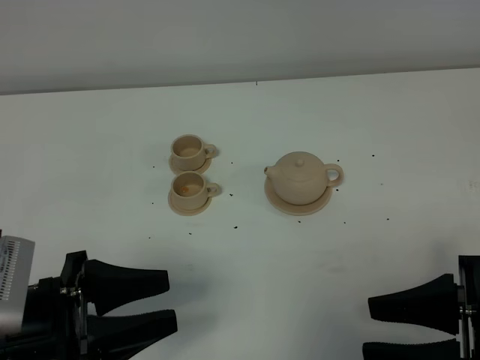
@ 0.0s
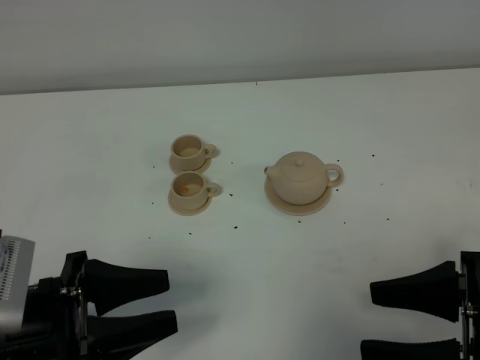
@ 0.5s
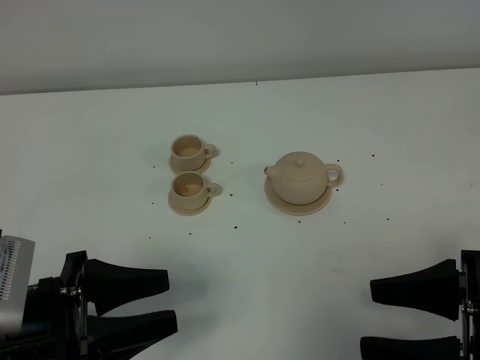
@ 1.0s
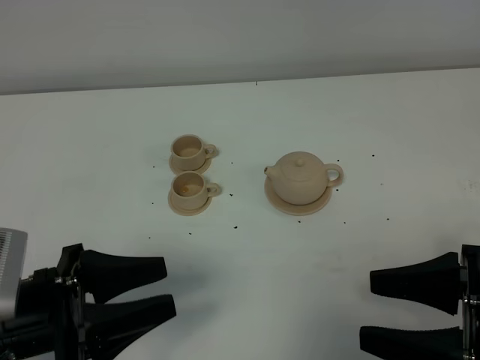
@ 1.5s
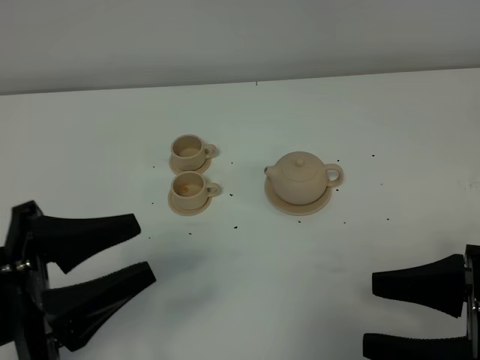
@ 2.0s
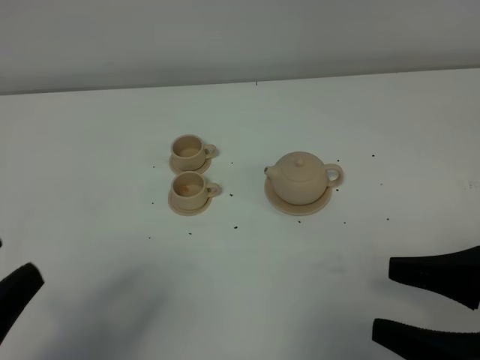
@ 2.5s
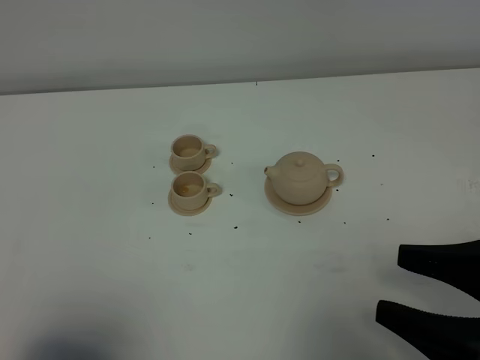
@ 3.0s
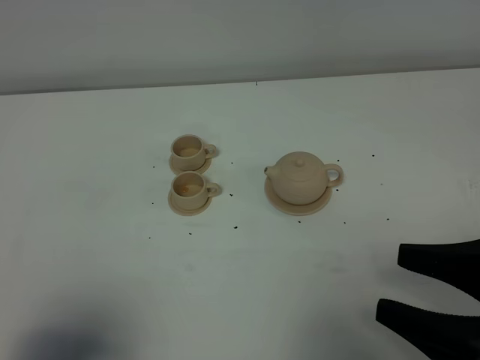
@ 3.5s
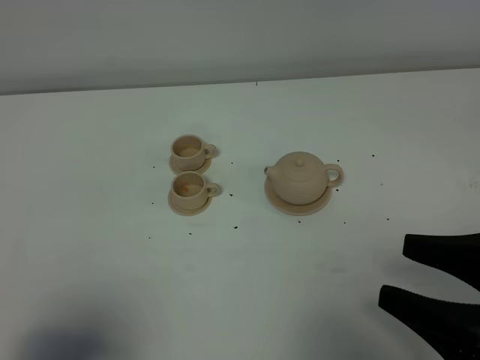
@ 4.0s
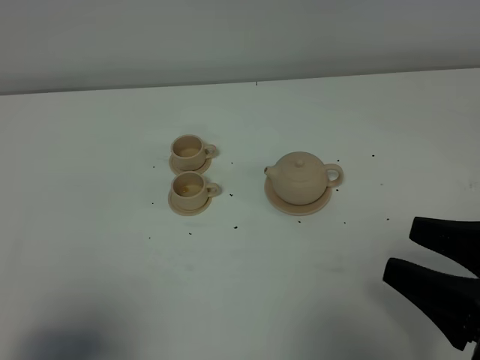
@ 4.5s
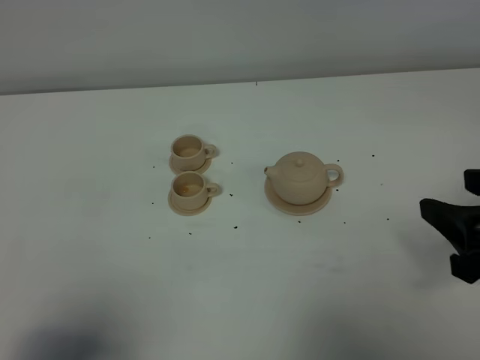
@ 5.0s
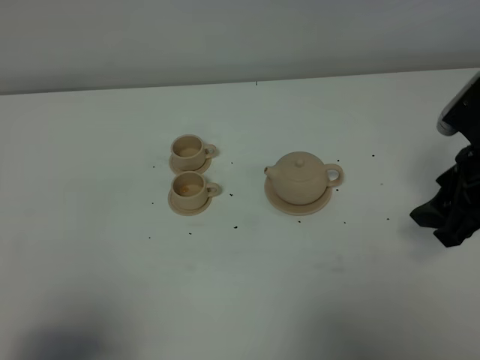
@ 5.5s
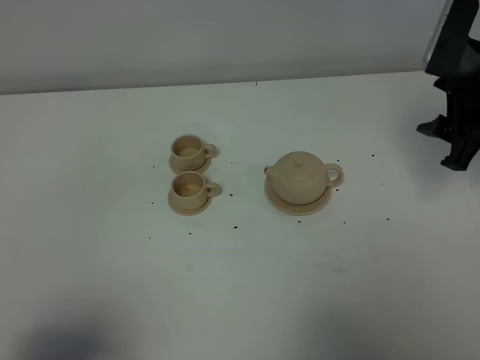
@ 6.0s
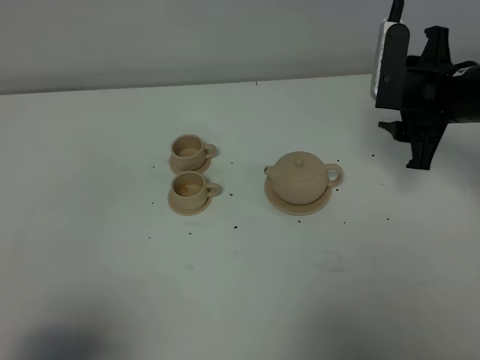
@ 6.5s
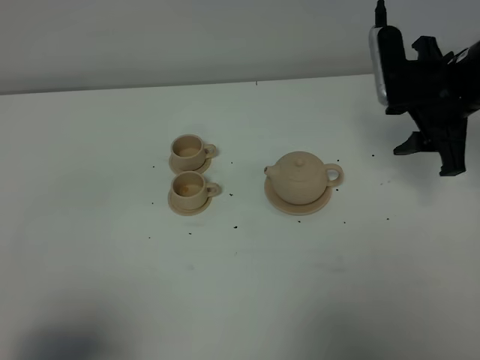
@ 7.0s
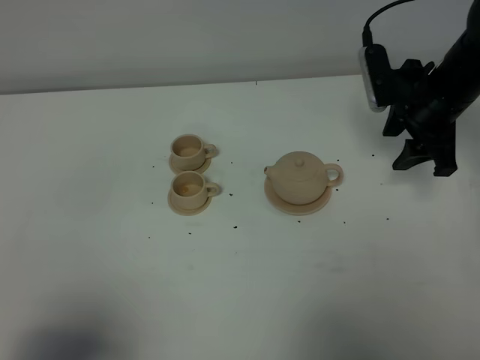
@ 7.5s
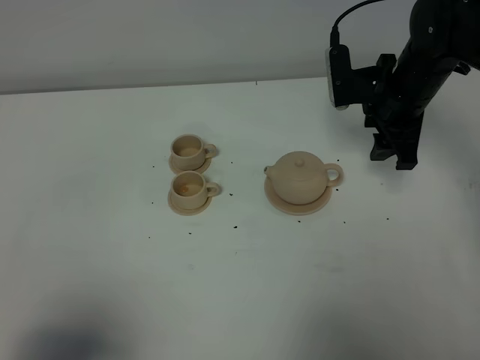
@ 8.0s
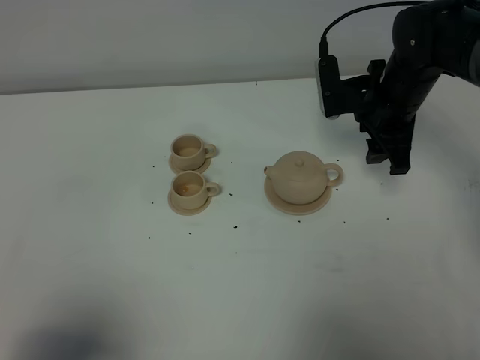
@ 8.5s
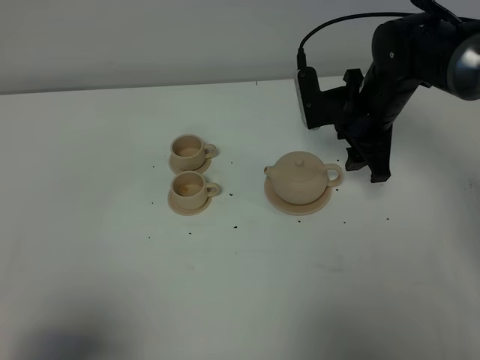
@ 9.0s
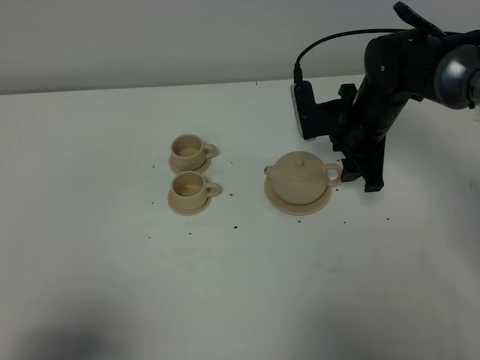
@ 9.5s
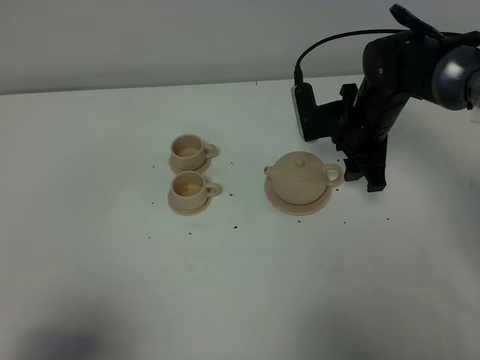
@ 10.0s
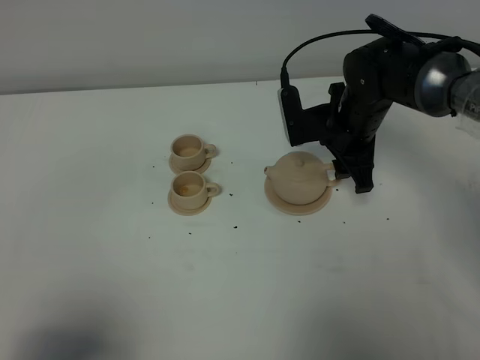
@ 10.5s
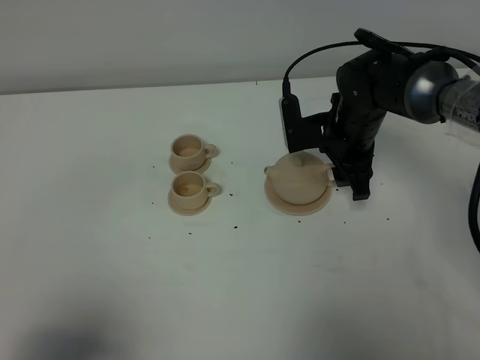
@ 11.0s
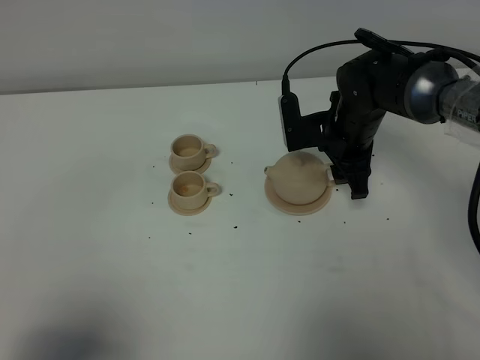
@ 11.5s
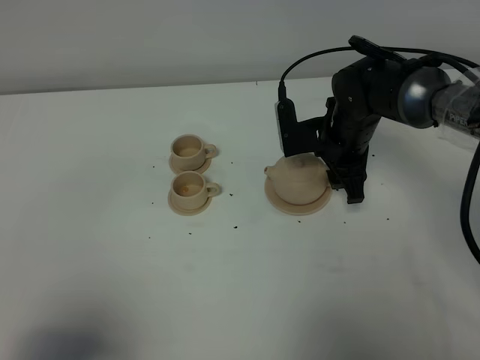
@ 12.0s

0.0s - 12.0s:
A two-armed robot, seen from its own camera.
Task of the whole recording: grasp the brown teapot and pour the tea into the two brown teacups one by one, put the brown teapot back in its original place.
0.0s - 2.0s: The left gripper travels upward by roughly 5 cm.
2.0s - 4.0s: The left gripper moves backward and to the left, about 10 cm, and closes its fingers.
4.0s - 6.0s: The right gripper moves forward, approximately 25 cm.
6.0s - 8.0s: The right gripper is displaced to the left, forward and downward by roughly 10 cm.
8.0s - 10.0s: The right gripper ends up some 5 cm from where it was.
10.0s - 12.0s: There are only small adjustments of the grippers.

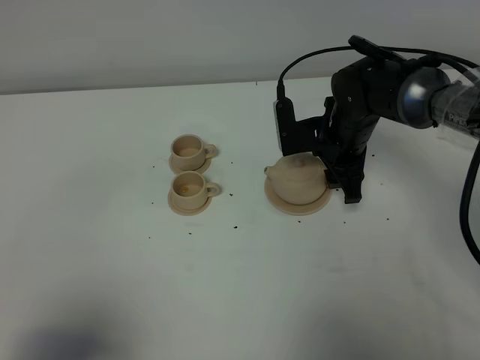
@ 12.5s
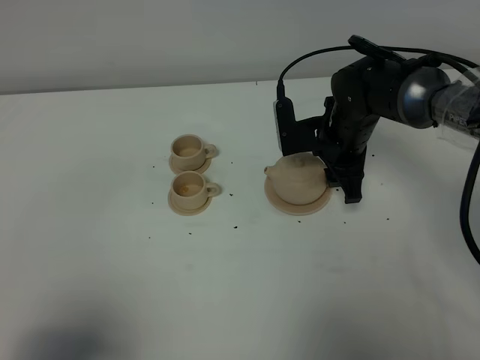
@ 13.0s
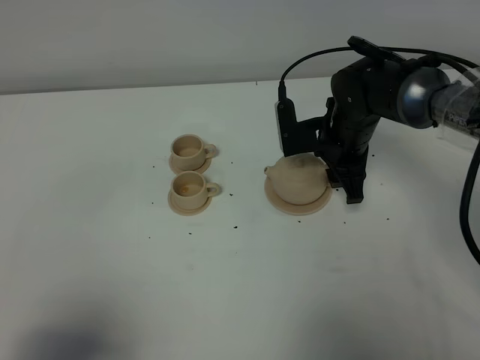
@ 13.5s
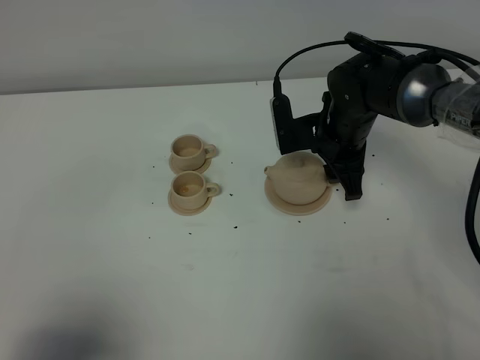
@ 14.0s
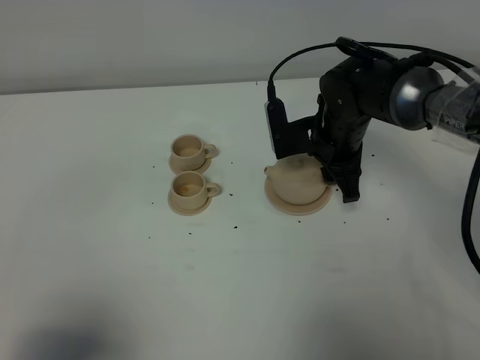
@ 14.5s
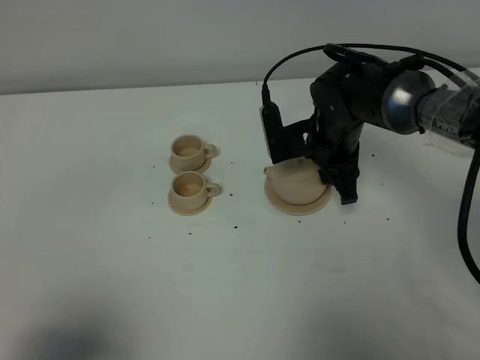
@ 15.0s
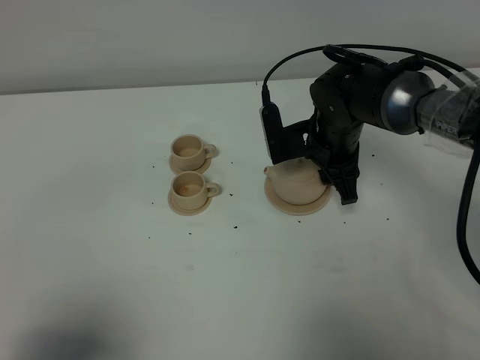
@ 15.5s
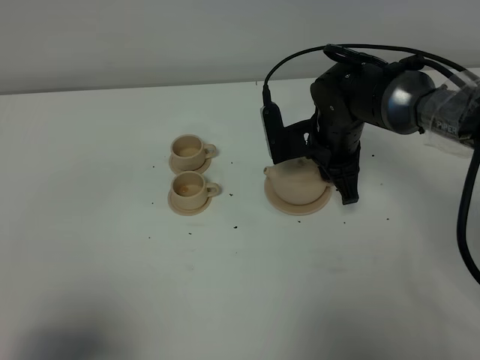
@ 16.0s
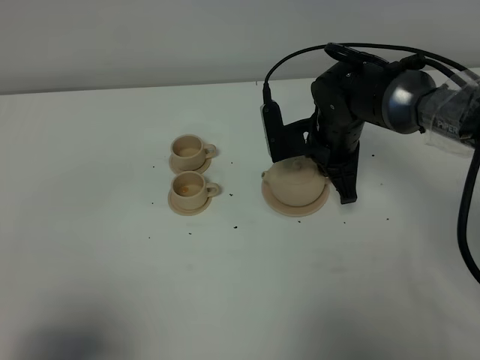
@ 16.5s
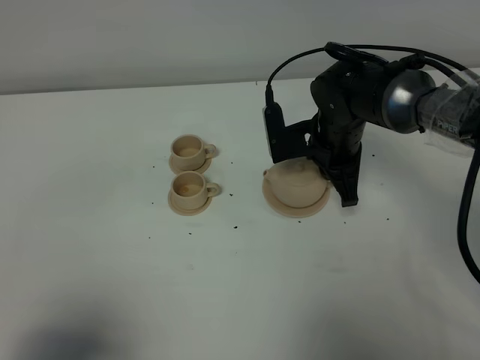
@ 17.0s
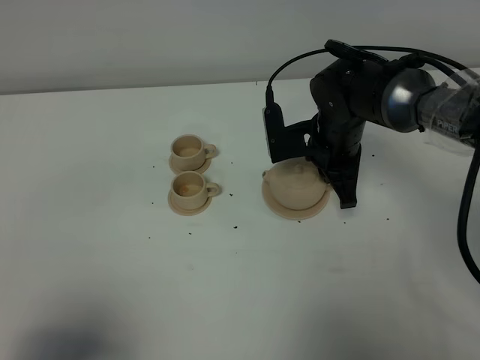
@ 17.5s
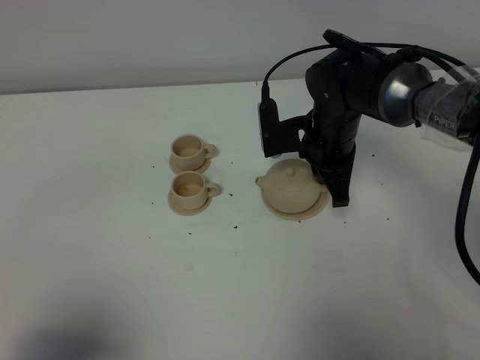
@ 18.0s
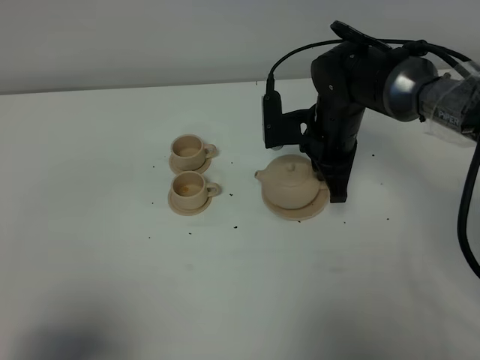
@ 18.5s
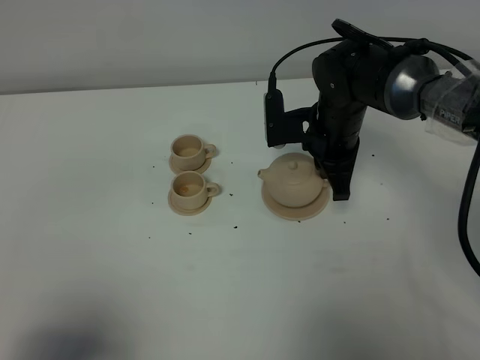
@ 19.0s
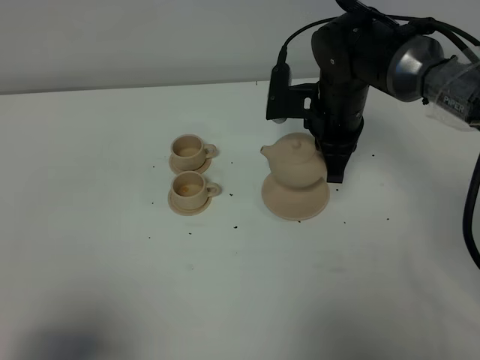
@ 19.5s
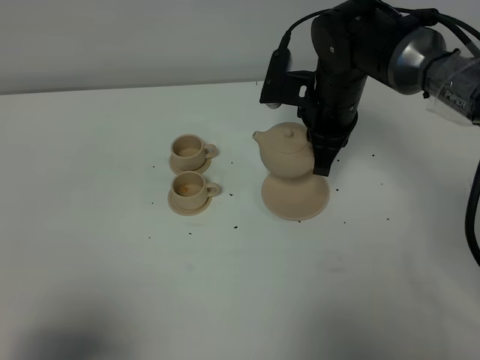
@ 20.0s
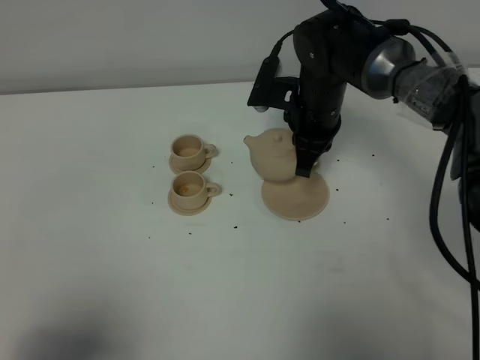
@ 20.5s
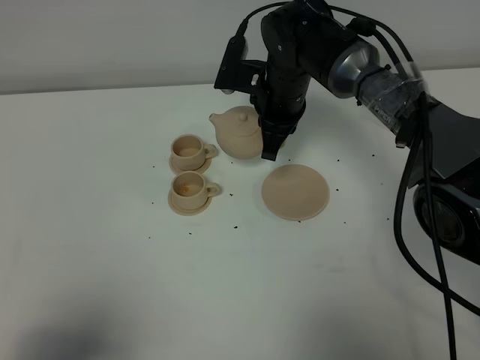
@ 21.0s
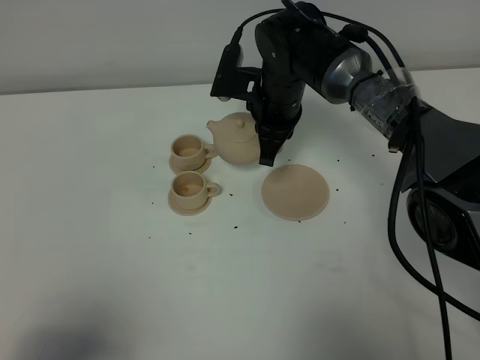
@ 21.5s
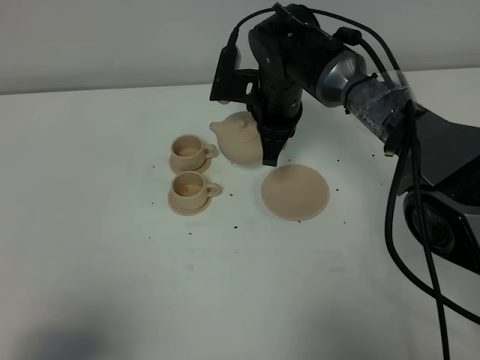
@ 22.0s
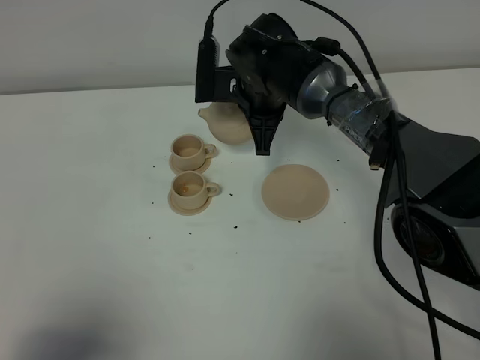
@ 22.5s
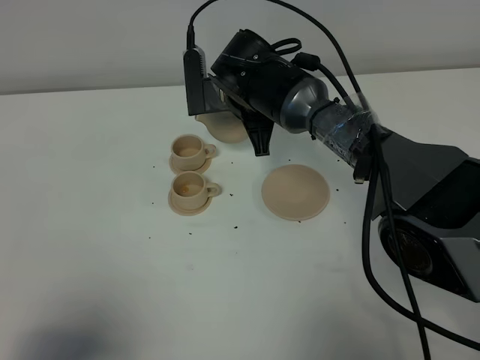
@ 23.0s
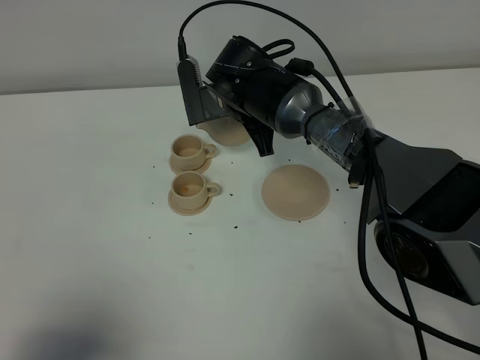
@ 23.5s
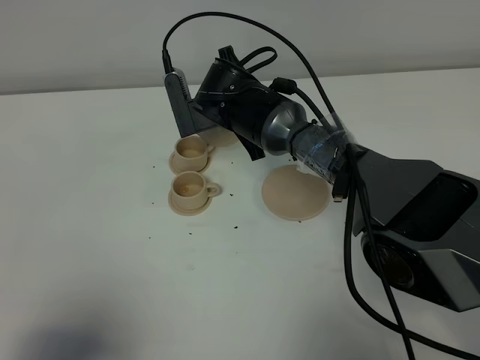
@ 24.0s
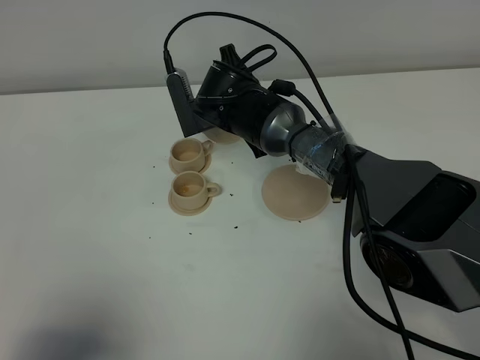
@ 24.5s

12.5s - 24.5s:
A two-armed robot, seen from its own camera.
Task of the whole recording: grasp the brown teapot and pour the tea into the two brown teacups one by one, put the brown teapot back in its original place.
Step, 12.5s - 18.5s: Pick up the teapot with the right gripper.
12.5s - 14.5s: The grippers make only small movements.
14.5s - 16.5s: The right gripper closes.
16.5s - 18.5s: The grippers move only a little.
18.5s - 20.5s: The grippers stay close to where they were, moving slightly.
20.5s - 22.5s: The right gripper moves to the left, some 5 cm.

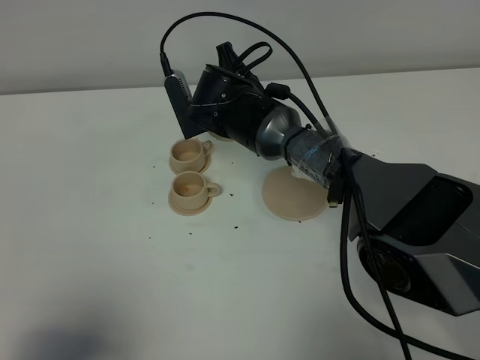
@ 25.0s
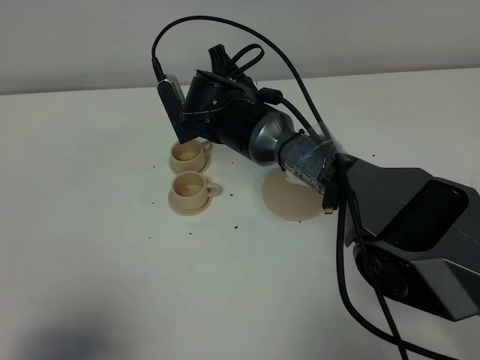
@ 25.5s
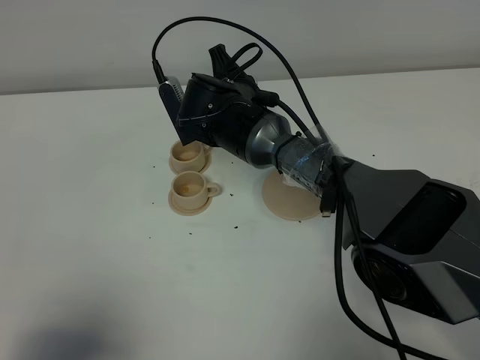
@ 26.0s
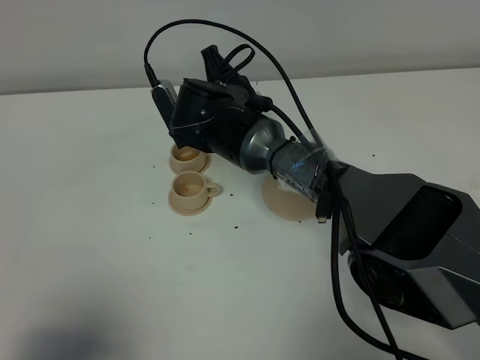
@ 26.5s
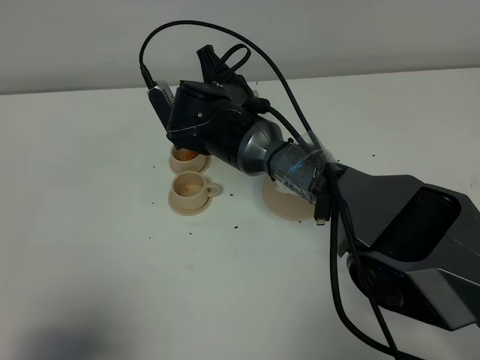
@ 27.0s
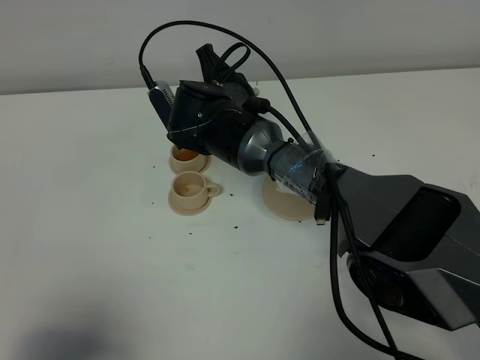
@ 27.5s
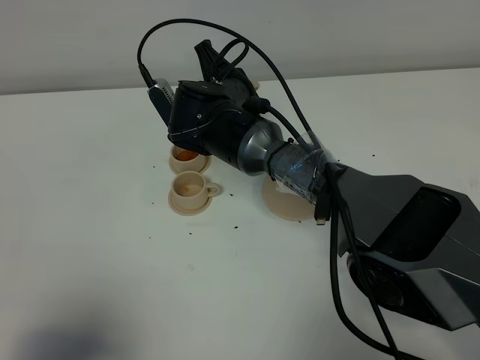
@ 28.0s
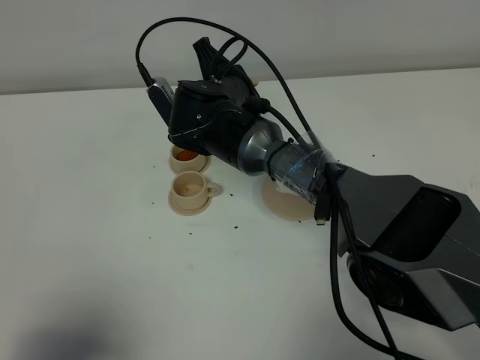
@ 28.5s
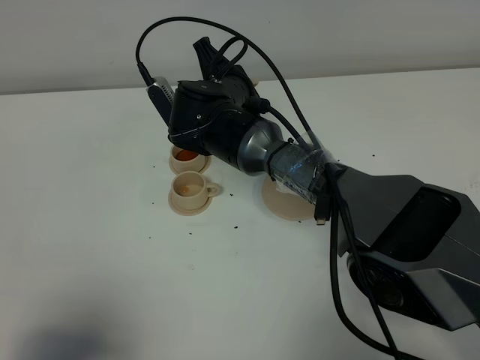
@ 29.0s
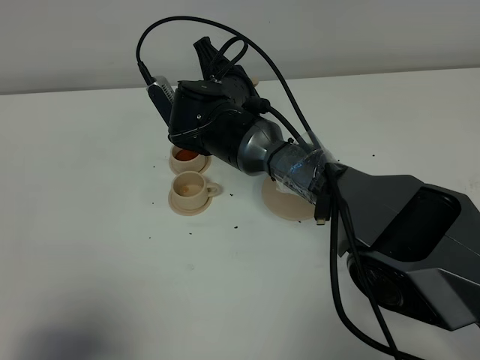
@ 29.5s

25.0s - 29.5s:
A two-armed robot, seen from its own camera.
Task of the whole recording: grasp the brown teapot and pour the tea into the two brown teacups one by one, put the brown teapot back in its original place.
25.0s - 29.5s: The grippers stay close to where they were, moving slightly.
